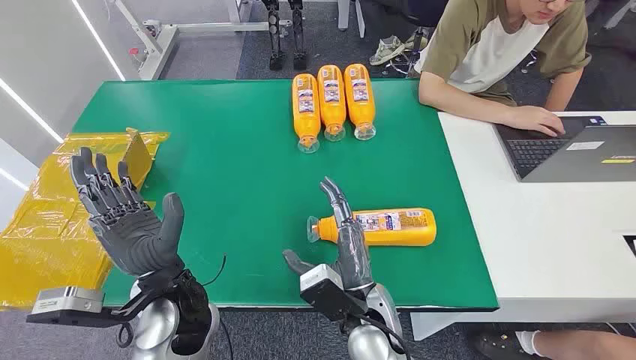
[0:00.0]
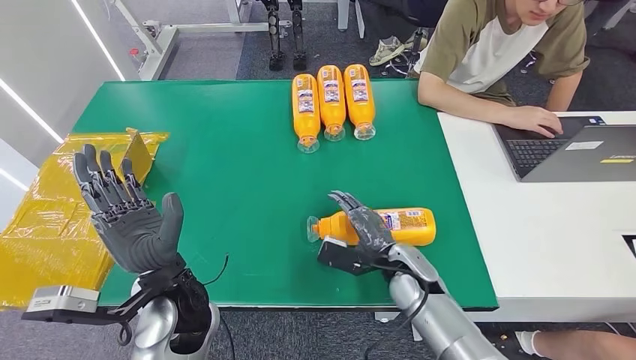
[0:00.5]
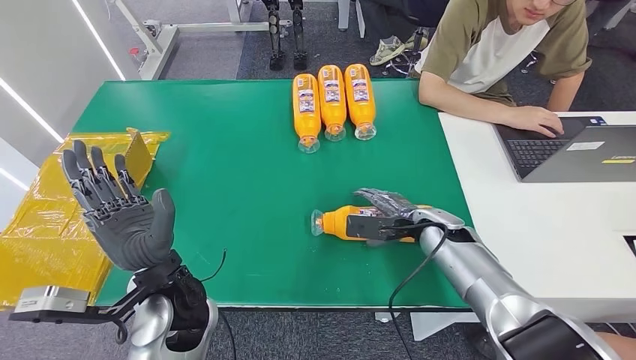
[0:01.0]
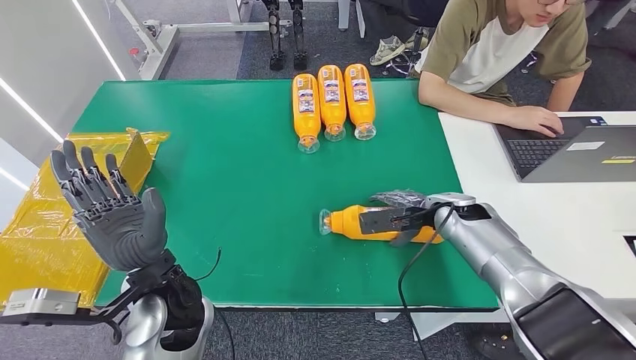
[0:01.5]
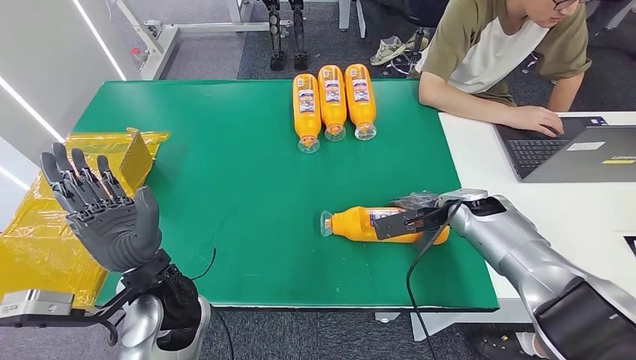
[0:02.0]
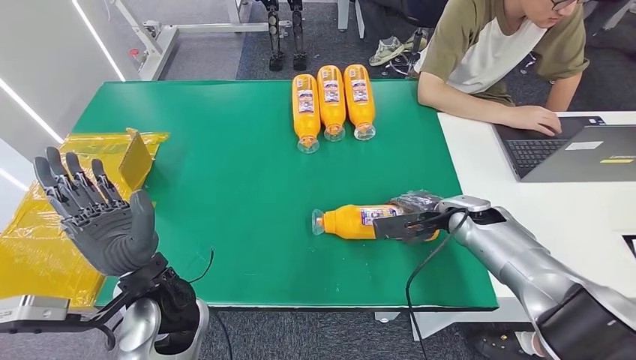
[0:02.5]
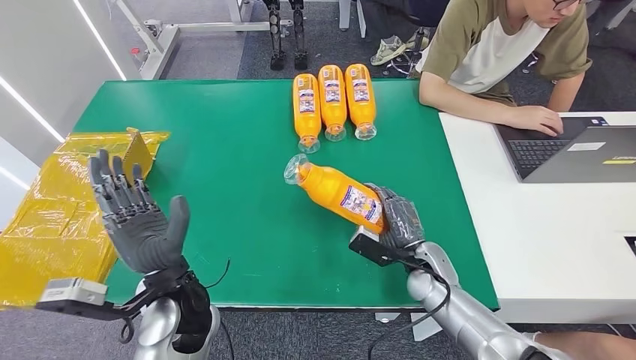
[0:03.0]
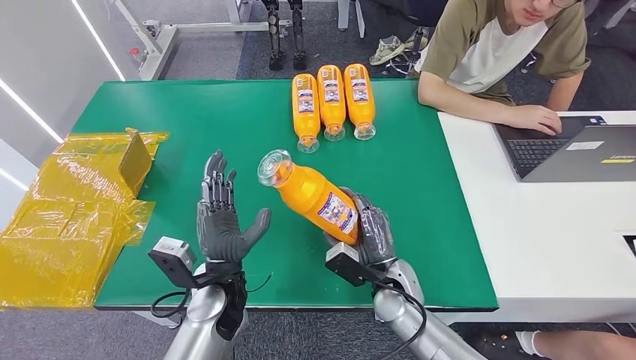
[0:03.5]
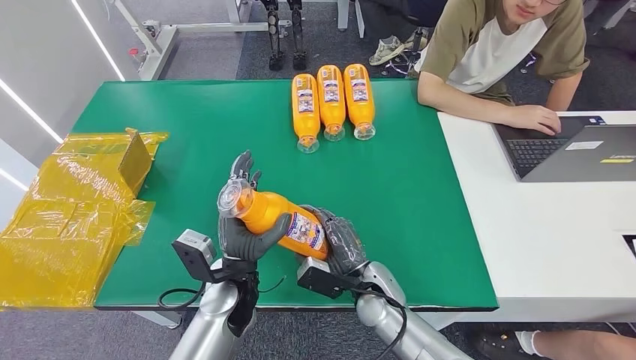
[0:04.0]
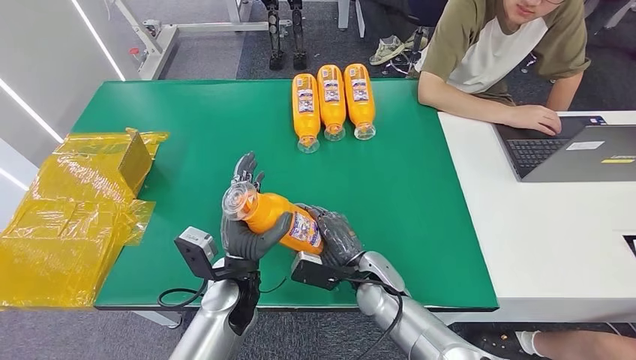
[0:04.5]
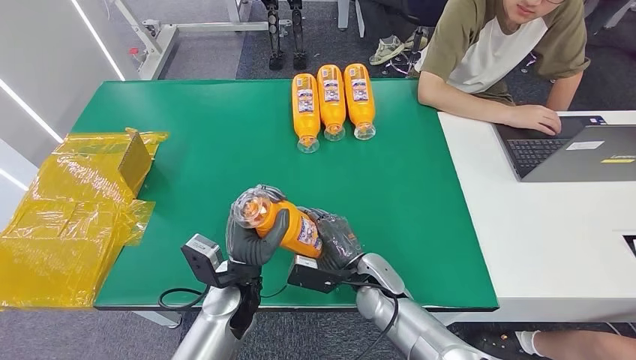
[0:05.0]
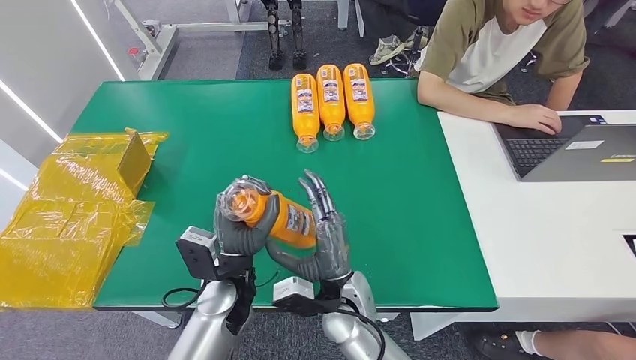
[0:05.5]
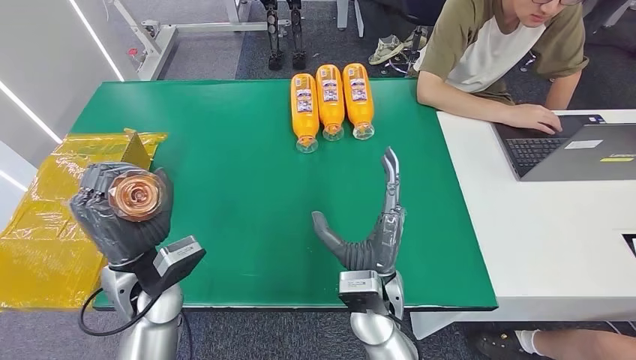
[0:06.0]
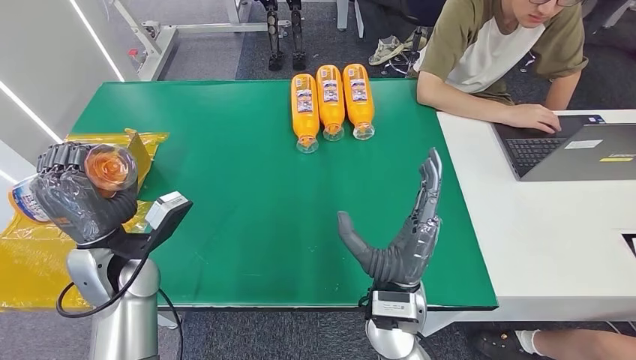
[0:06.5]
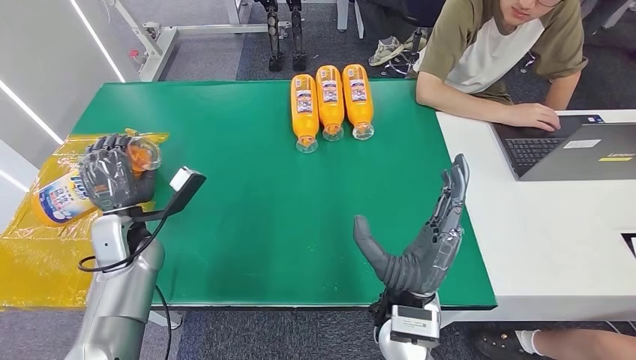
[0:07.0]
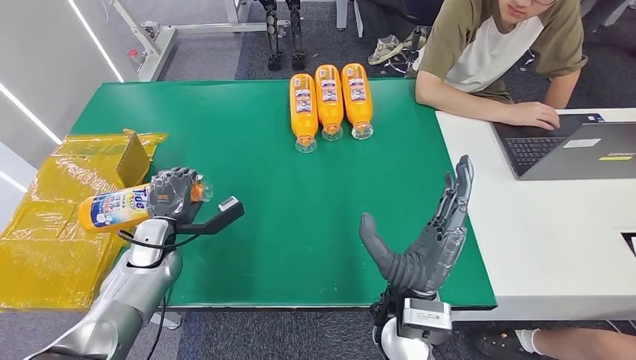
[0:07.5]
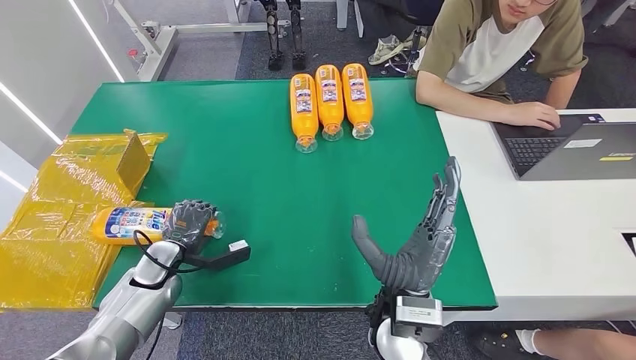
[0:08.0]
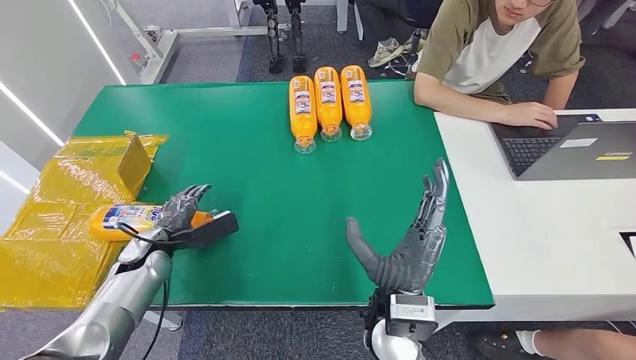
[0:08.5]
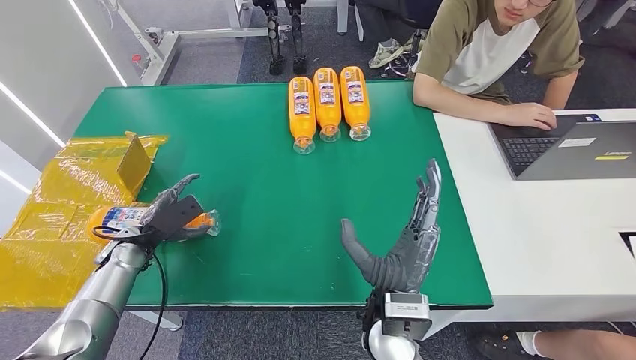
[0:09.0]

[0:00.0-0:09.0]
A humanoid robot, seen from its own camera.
Step, 0:00.0 to 0:03.5: Pick up the bottle from the table.
Step, 0:04.0 to 0:09.0: Turn the bottle to the front side.
0:07.0 to 0:09.0: The left hand moves to the left and downward, roughly 10 cm.
